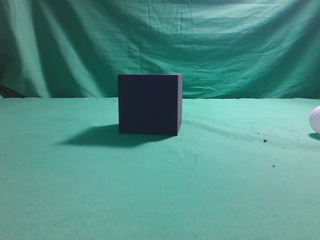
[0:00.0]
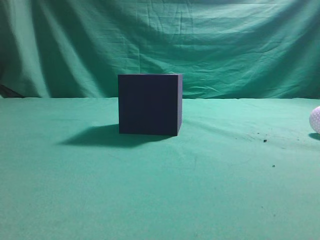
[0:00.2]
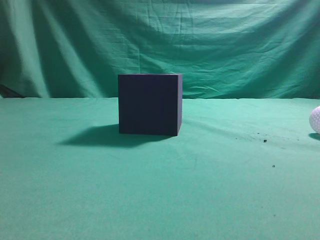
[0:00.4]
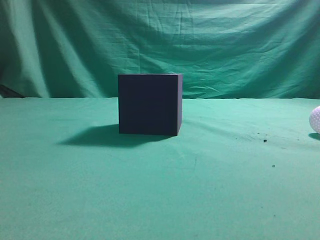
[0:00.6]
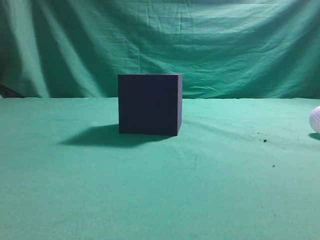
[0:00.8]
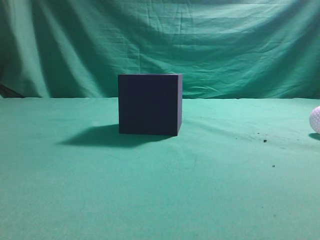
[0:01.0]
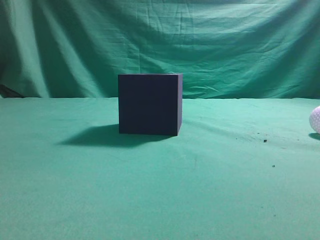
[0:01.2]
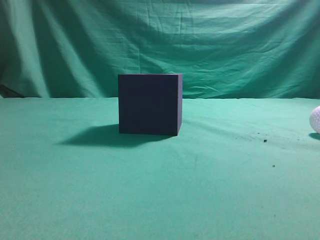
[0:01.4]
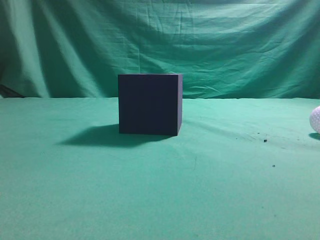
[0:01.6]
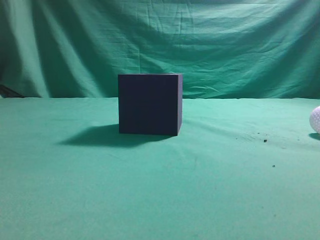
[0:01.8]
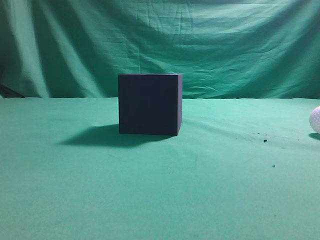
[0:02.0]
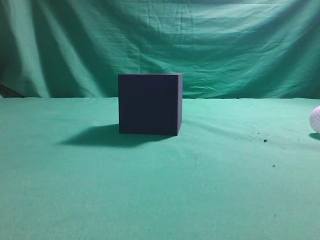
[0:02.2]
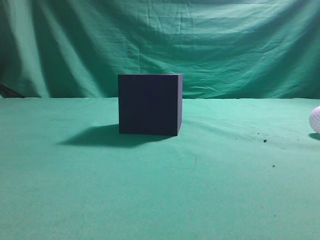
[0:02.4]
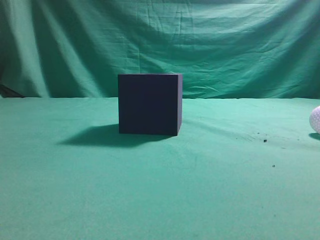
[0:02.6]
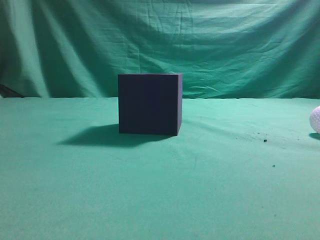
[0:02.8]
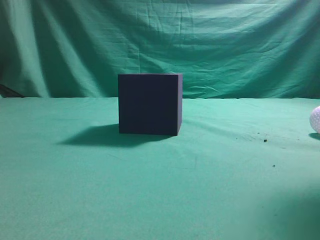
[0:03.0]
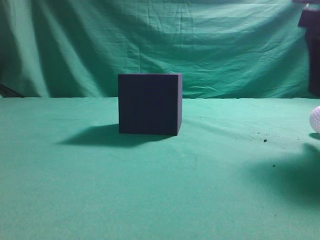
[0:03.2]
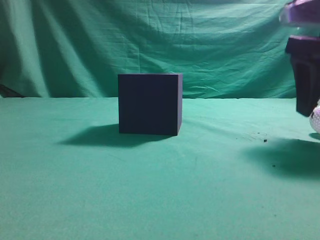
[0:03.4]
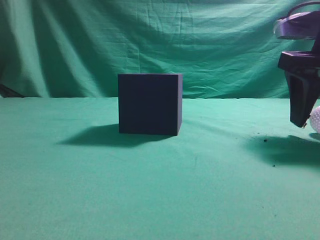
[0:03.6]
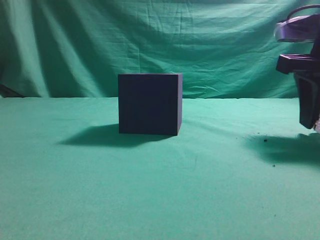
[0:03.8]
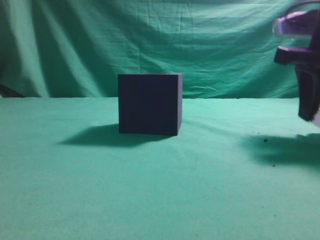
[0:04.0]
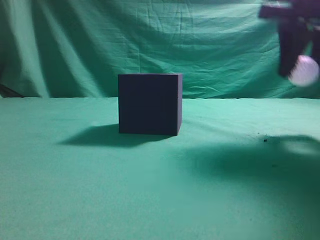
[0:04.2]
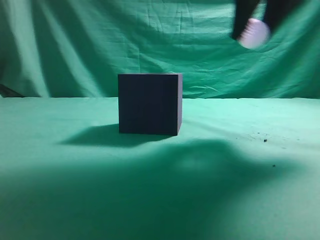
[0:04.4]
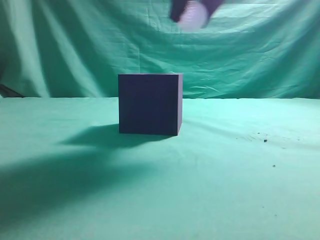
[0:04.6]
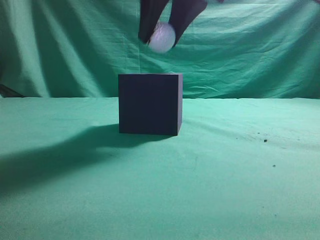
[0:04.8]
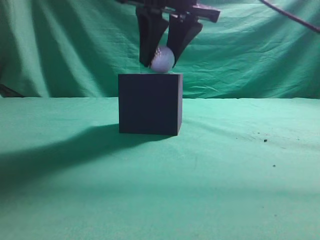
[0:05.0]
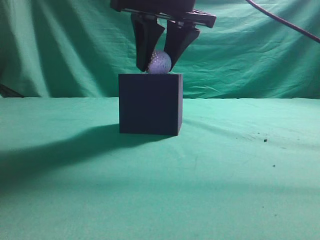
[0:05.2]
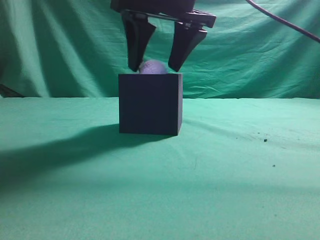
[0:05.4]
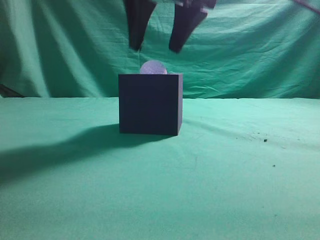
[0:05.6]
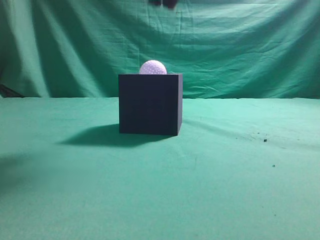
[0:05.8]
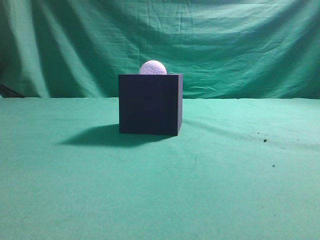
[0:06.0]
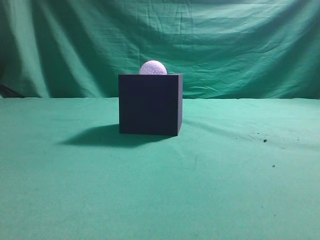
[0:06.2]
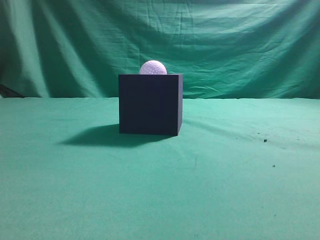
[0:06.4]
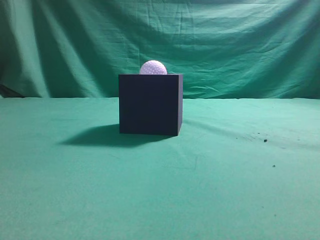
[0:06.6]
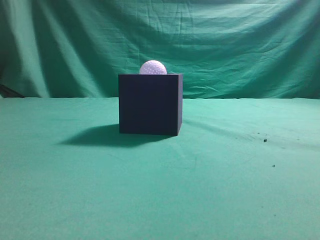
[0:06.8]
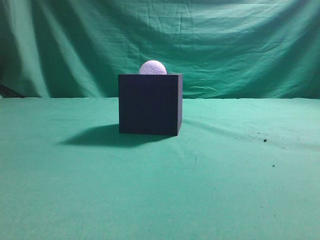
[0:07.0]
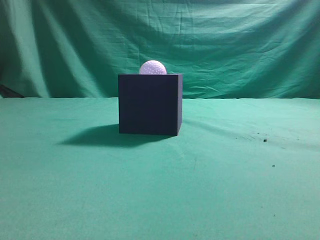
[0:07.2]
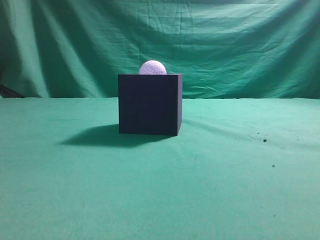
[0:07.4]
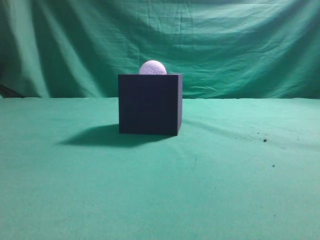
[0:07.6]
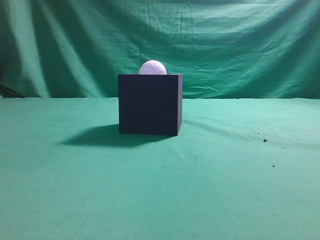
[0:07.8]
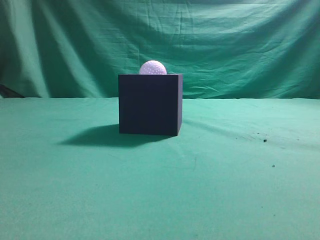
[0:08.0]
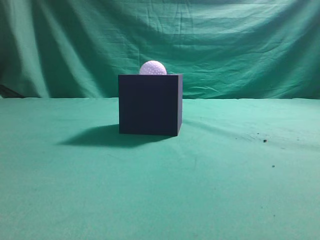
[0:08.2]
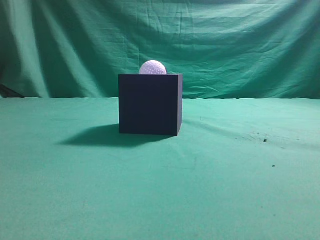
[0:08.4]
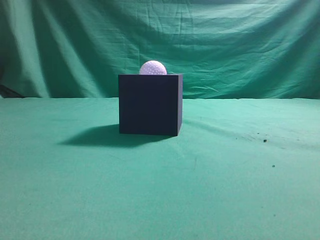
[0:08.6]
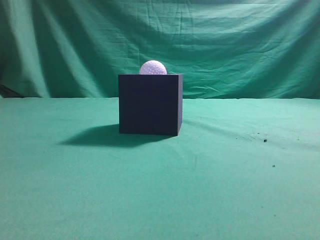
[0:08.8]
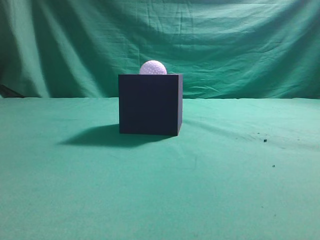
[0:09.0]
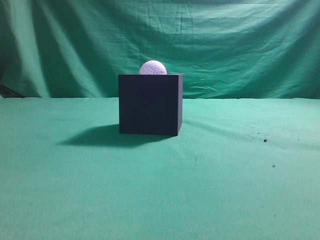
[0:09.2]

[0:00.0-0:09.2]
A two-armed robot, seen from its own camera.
Task of the whole recording: Pick up the ball and place it in the circular groove above the cube.
Step, 0:00.0 to 0:04.0: Grasp the sphere on the table.
Step, 0:04.2 to 0:05.6: Place the sphere into the sphere-shaped recess.
0:01.6 to 0:03.0: The right gripper moves forward, about 20 cm.
0:03.0 to 0:04.6: The right gripper shifts approximately 20 cm to the left, upward and forward, and opens, then closes once more.
0:04.6 to 0:06.2: The right gripper shifts approximately 15 cm upward and backward, and closes.
